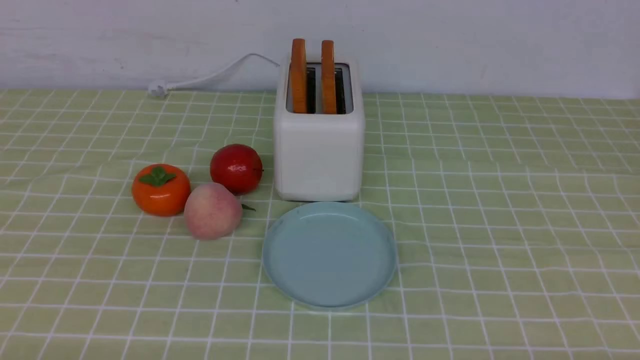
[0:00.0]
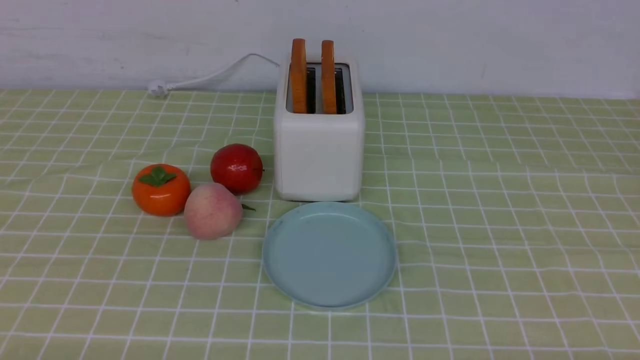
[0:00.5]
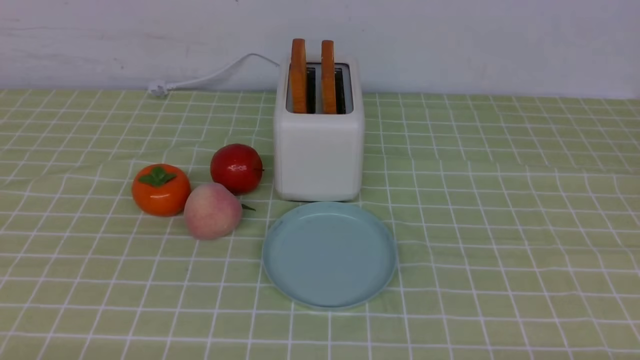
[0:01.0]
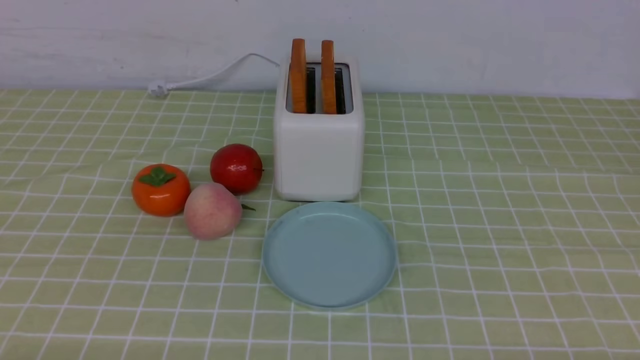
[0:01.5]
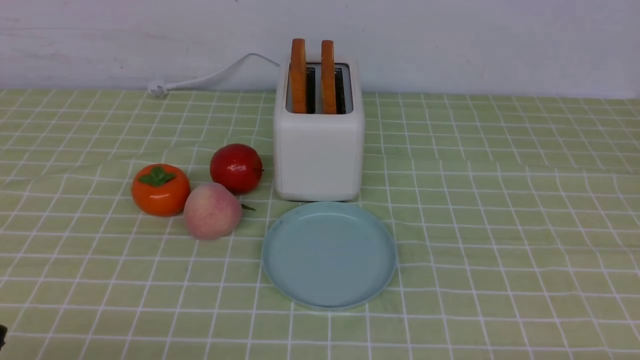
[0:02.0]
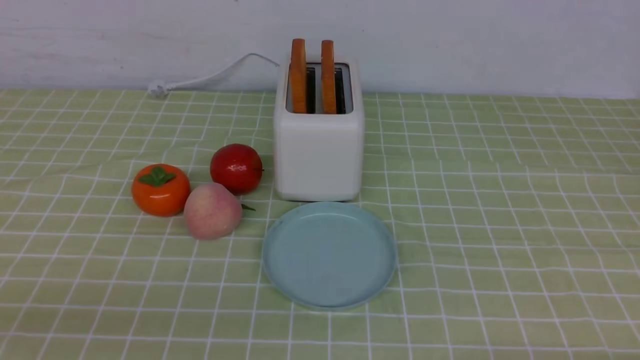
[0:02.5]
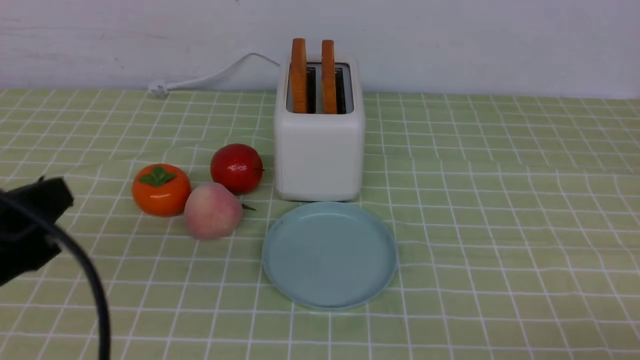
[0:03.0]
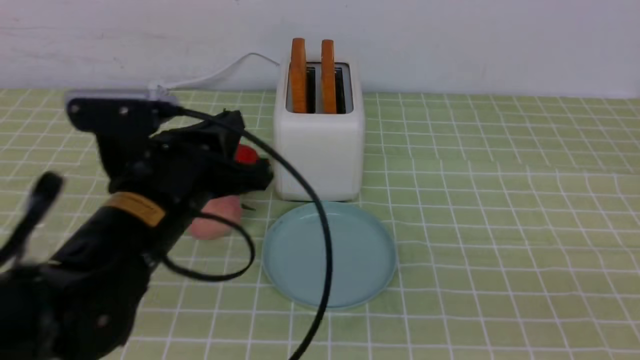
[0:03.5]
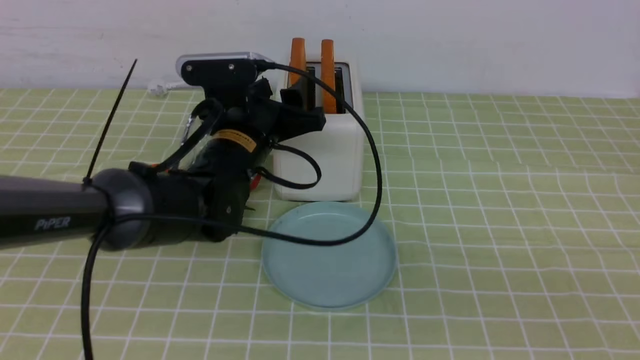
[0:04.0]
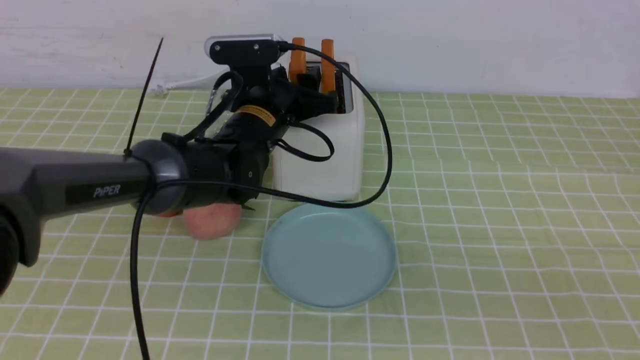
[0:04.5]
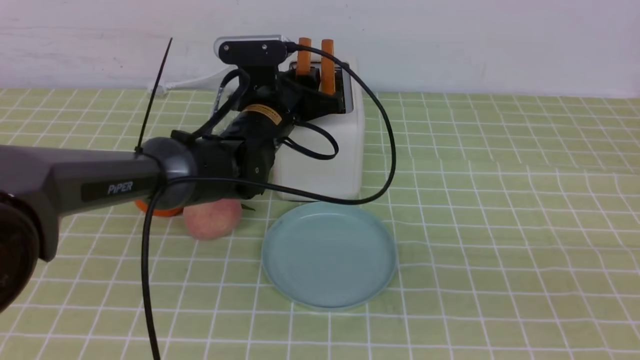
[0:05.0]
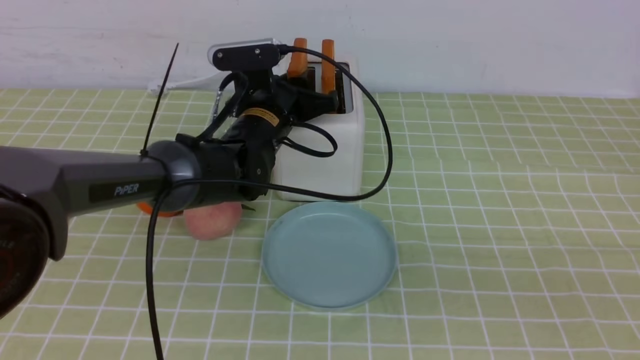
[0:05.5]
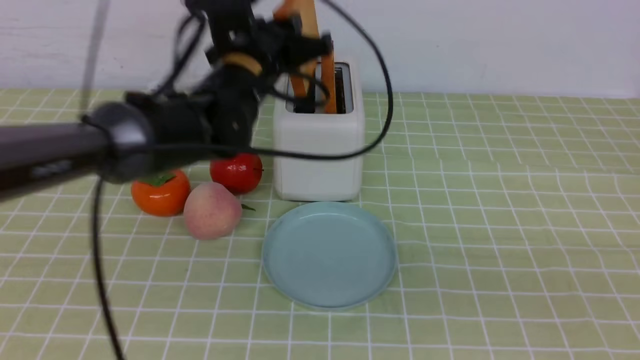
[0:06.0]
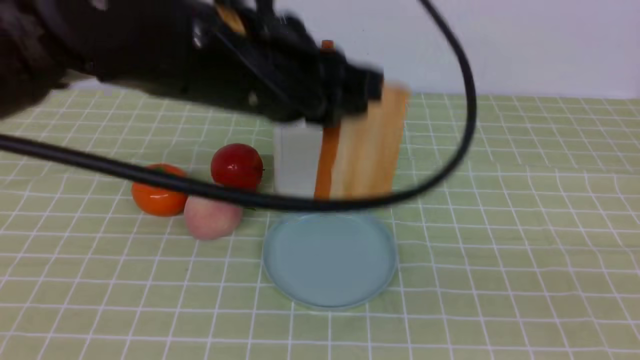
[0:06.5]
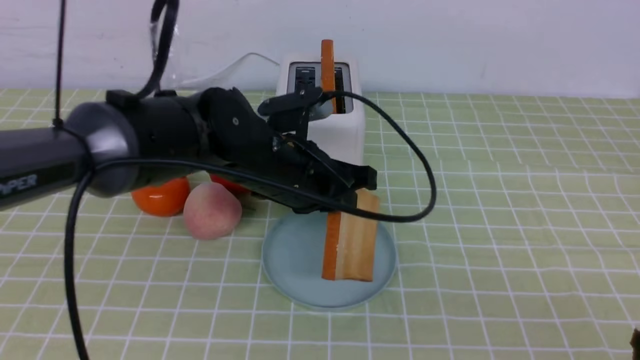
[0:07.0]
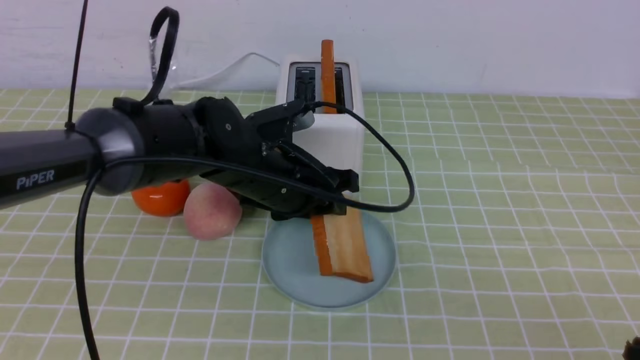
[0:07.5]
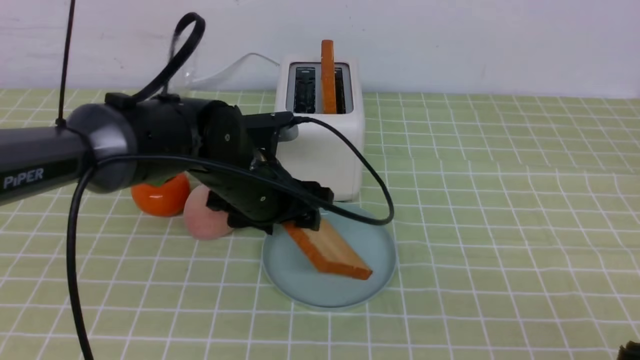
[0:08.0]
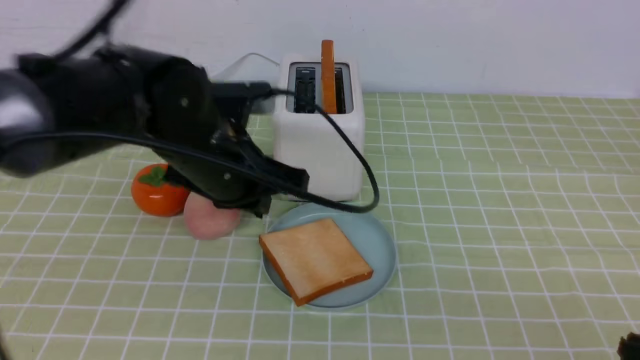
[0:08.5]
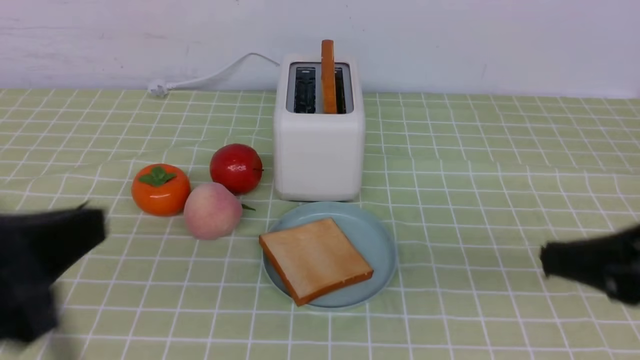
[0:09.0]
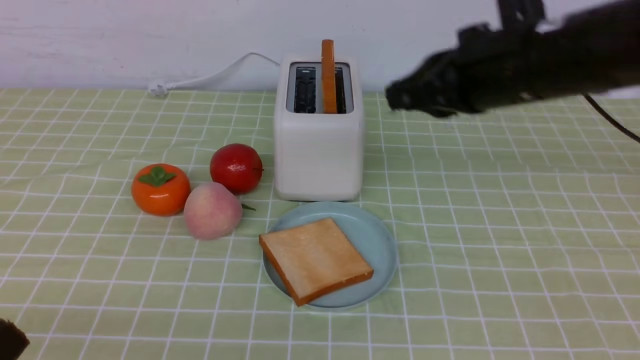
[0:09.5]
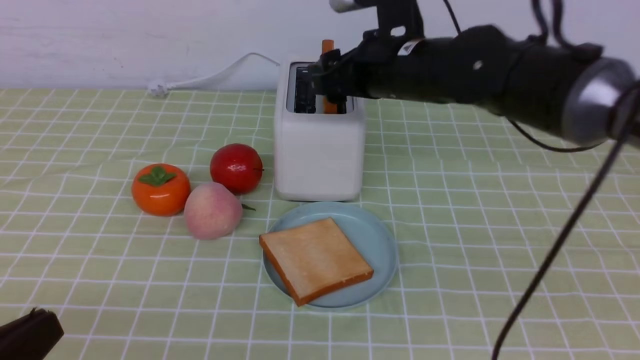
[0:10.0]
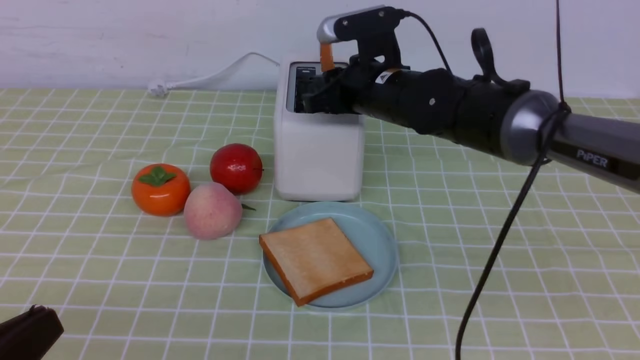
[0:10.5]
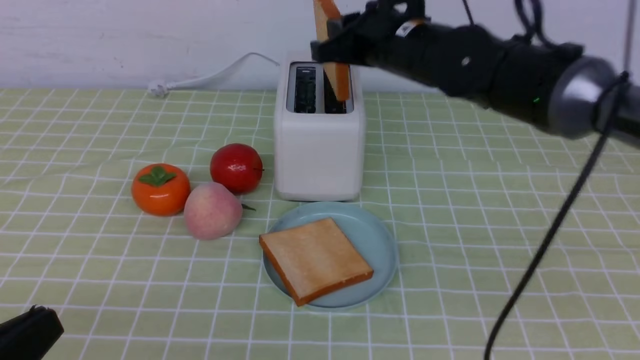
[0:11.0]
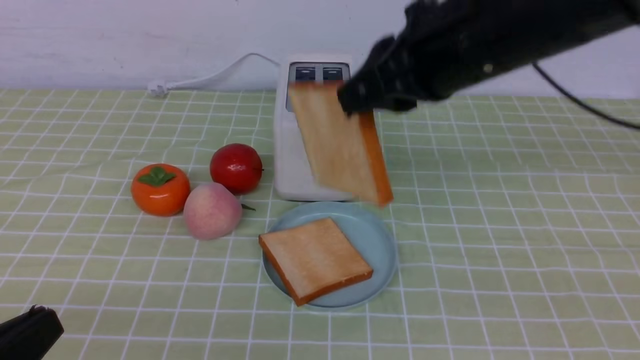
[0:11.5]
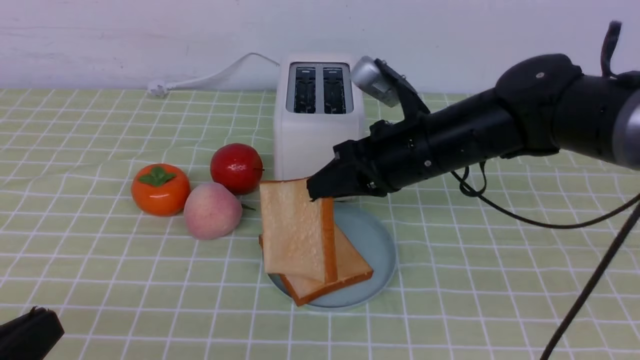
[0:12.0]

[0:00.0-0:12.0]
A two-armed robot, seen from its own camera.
Task of the whole recording: take toasted bread from bread machine on green coffee tablecloth place on plate.
Step, 0:00.0 to 0:06.0: use the left arm to take out a slice of bread.
Step, 0:06.5 to 0:08.0: use the left arm to put a slice of bread into the empty plate.
Step, 0:08.5 to 0:11.0: use the right arm to take out a slice of bread.
0:02.0 to 0:04.0: The right gripper shifts some 15 cm upward, and closes, while the left gripper moves forward and to the right, roughly 35 cm, and opens up.
0:04.0 to 0:06.0: The left gripper shifts roughly 10 cm upward, and closes up.
0:06.0 to 0:08.0: The left gripper travels downward by roughly 10 cm, and opens up.
0:08.0 to 0:10.0: The right gripper goes about 40 cm forward and to the left, and opens its fingers, while the left gripper heads backward and to the left, covering some 35 cm, and closes its fingers.
0:10.0 to 0:12.0: The right gripper is displaced backward by approximately 5 cm, and closes up.

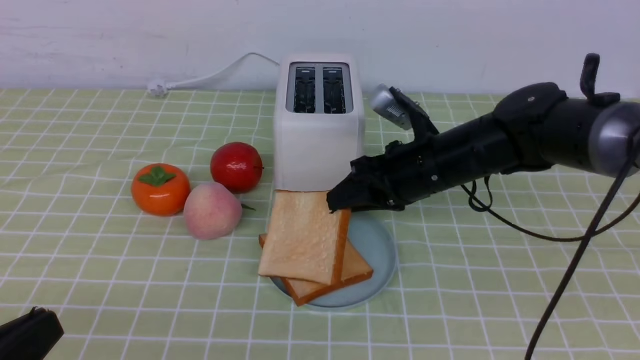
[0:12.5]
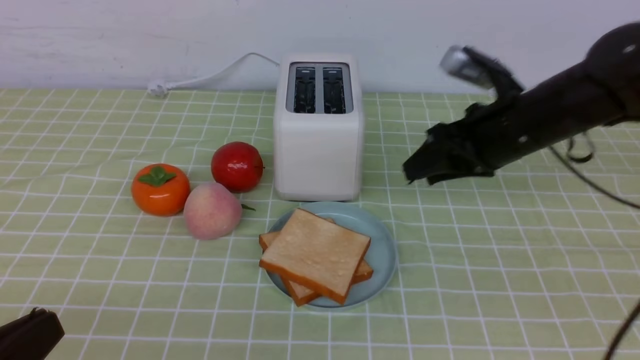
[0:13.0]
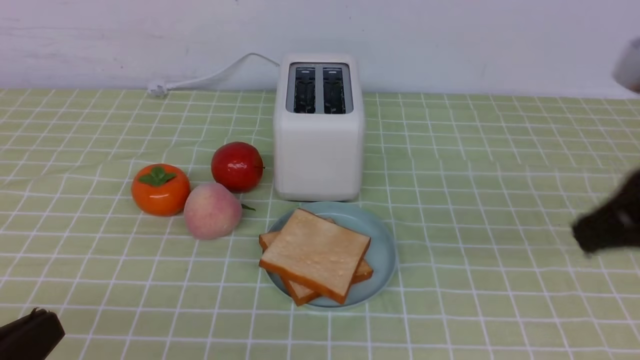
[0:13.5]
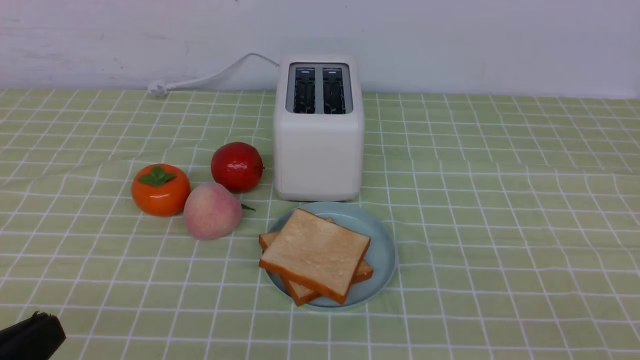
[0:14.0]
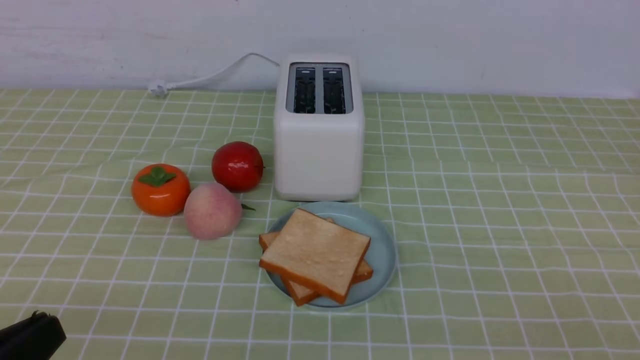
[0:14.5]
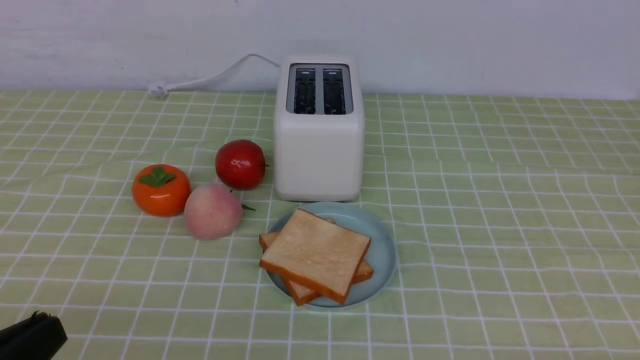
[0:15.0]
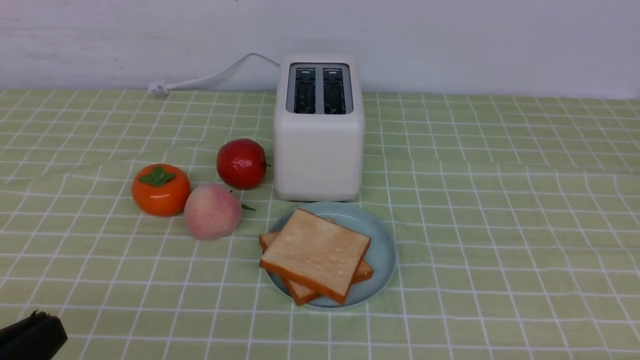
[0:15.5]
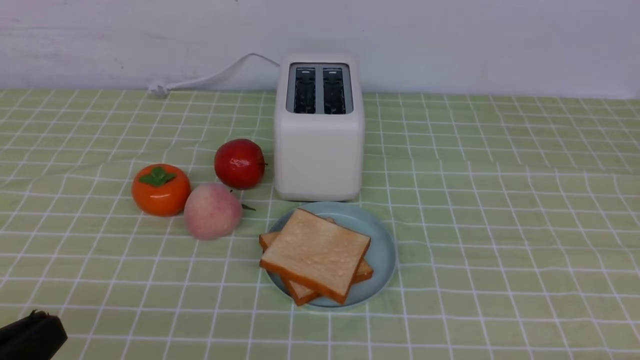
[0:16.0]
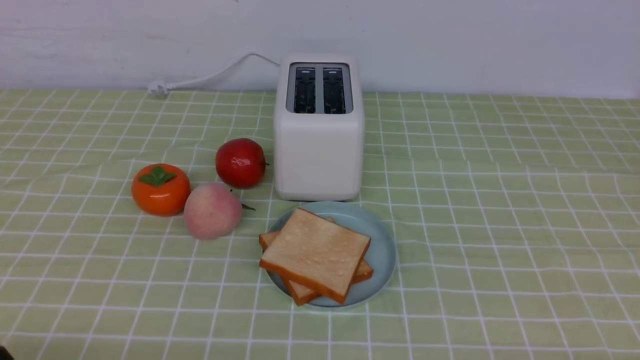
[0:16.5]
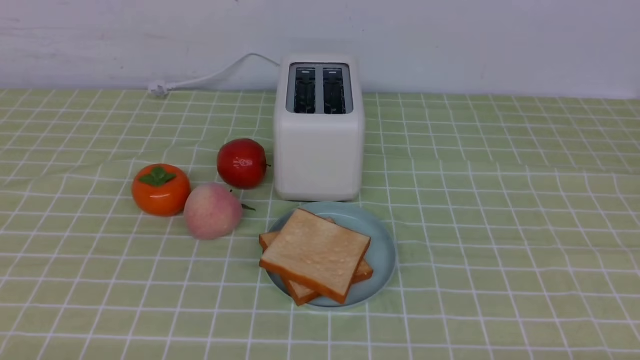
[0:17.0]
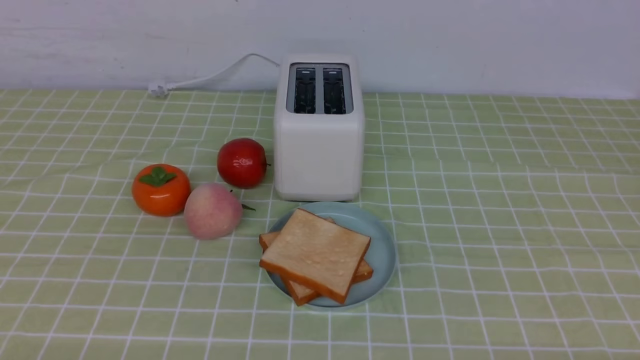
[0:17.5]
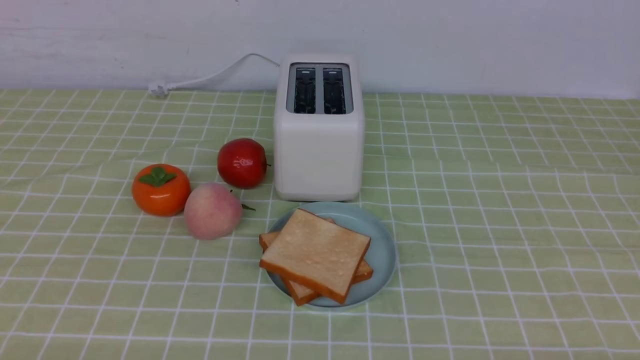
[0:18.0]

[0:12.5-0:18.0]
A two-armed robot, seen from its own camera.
Task of the whole recording: take toasted bread from bread machine on green coffee tablecloth place on plate.
0:12.5 to 0:14.5: The right gripper moves backward and to the right, roughly 35 cm, and closes.
0:16.0 to 0:18.0: The left gripper travels downward by roughly 10 cm.
